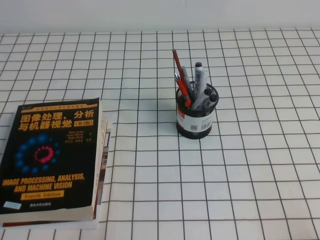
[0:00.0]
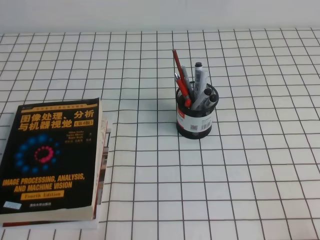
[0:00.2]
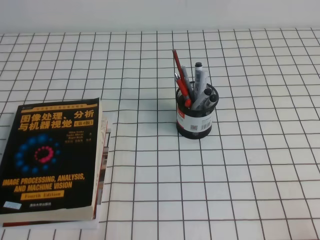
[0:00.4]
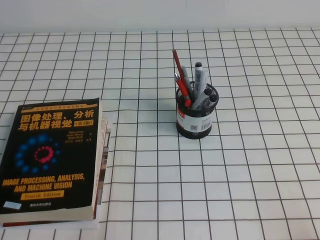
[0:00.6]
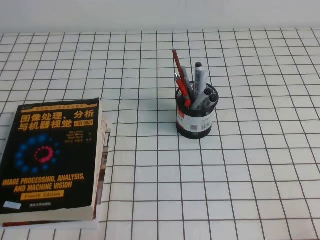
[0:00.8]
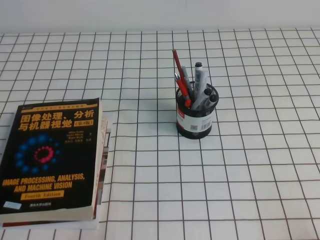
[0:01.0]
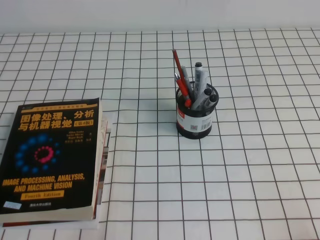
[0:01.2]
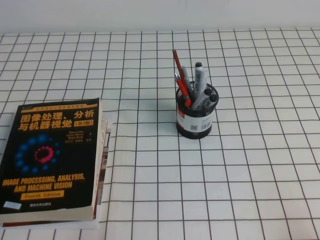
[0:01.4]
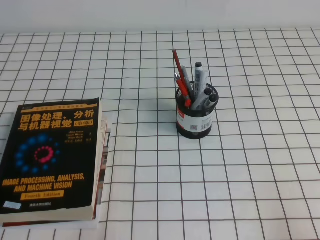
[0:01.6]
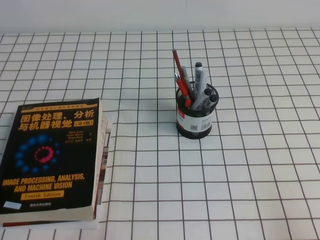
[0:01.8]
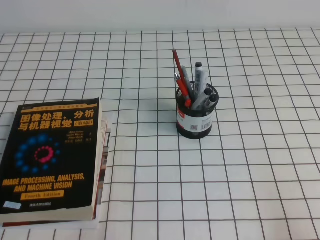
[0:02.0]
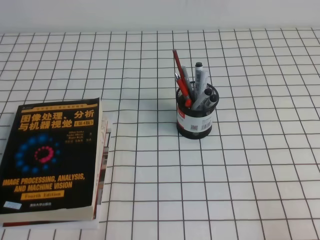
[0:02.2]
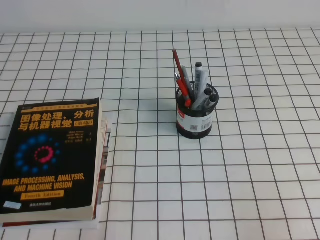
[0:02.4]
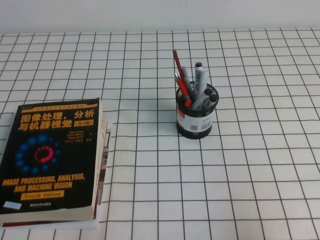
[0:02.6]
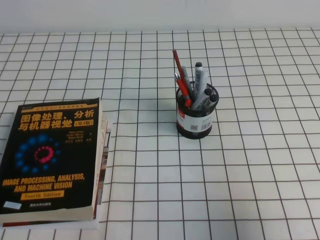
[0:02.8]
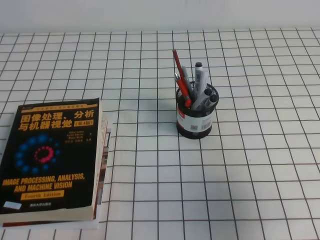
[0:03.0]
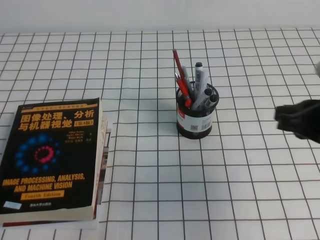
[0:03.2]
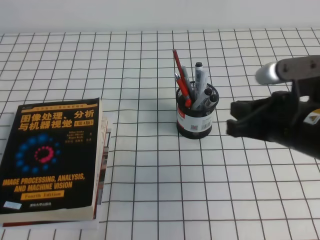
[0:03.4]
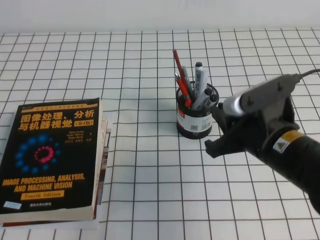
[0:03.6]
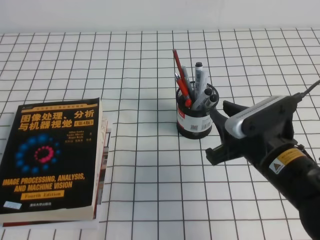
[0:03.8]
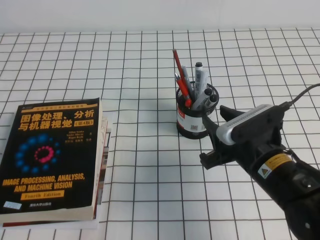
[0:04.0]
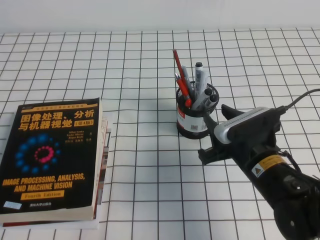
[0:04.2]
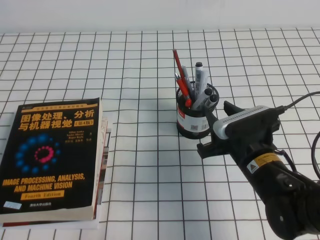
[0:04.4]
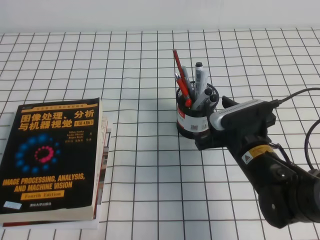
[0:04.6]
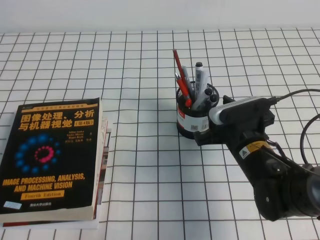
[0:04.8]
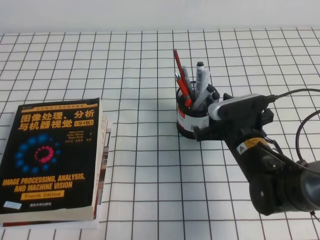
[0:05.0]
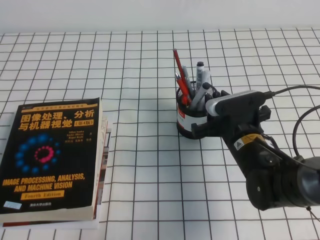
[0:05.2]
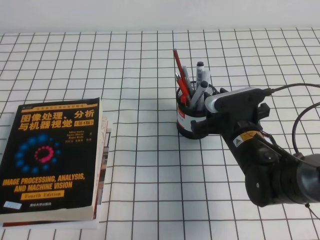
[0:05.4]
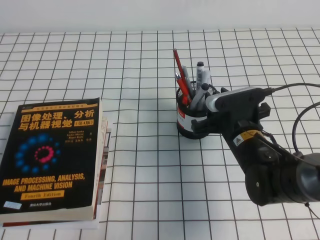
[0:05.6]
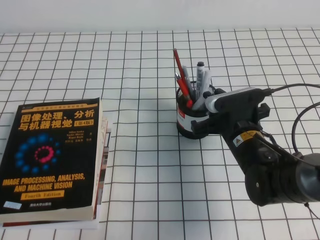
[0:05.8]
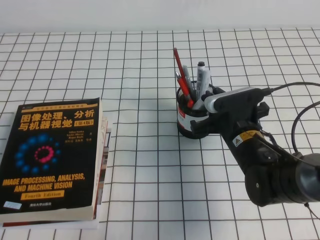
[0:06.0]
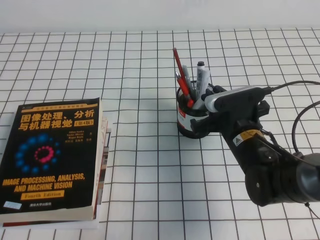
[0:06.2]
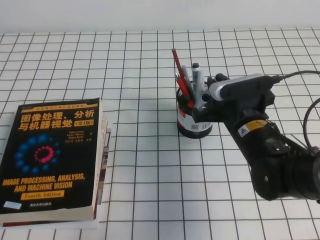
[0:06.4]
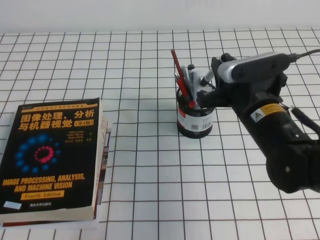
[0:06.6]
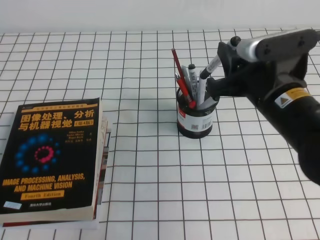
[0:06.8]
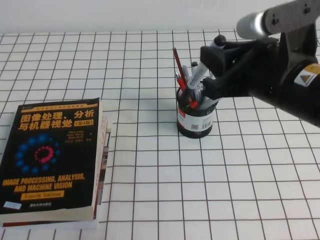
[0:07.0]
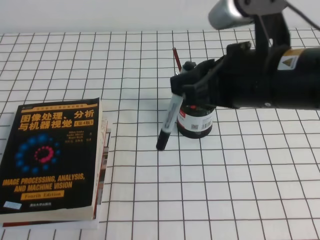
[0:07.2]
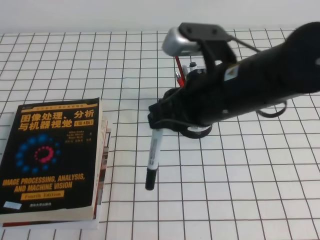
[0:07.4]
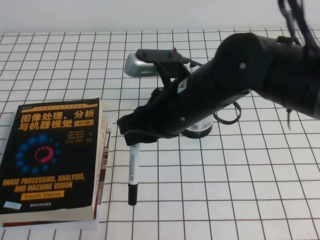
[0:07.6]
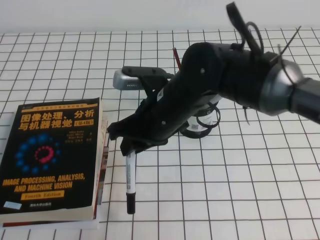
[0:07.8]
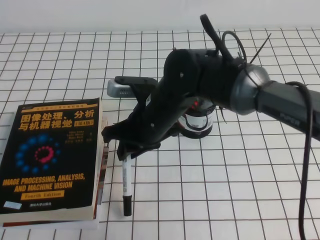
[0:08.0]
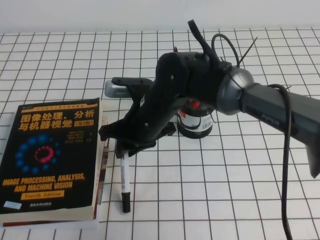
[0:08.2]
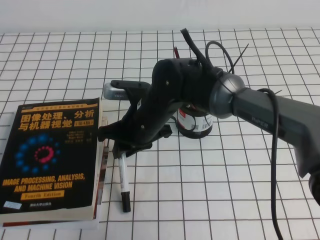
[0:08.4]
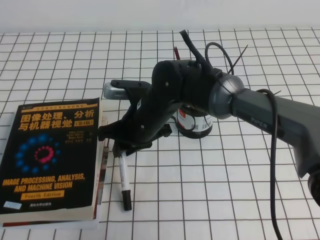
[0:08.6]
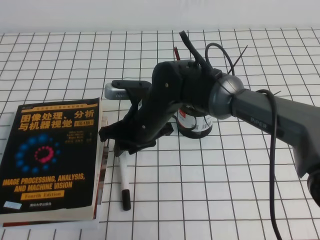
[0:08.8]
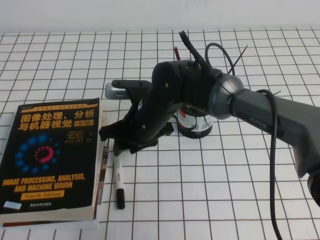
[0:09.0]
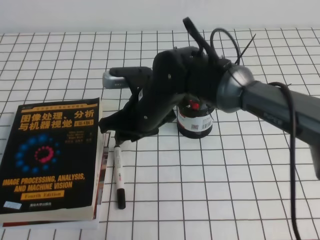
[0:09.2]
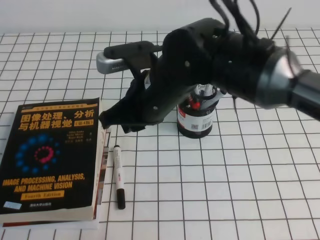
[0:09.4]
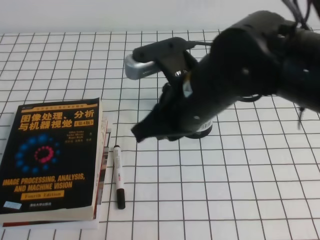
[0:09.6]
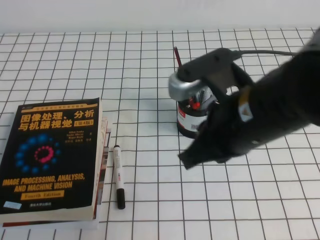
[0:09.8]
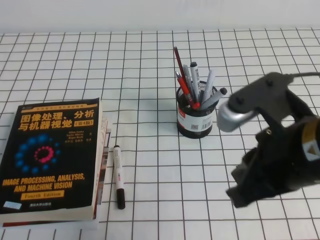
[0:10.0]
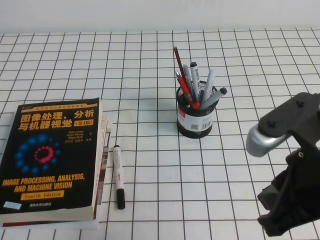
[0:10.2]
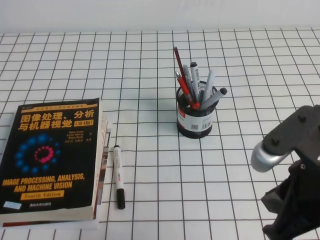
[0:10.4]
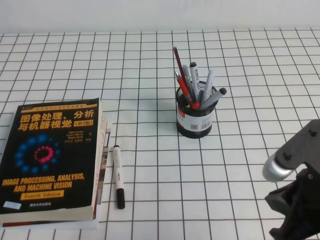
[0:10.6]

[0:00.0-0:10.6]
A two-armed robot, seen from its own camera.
0:01.6 to 0:03.0: The right gripper goes roughly 15 cm forward and upward.
0:03.0 to 0:04.6: The right gripper goes about 20 cm to the left, downward and forward, and opens.
0:04.6 to 0:06.0: The right gripper closes up.
0:06.0 to 0:07.6: The right gripper shifts roughly 15 cm upward and to the left.
0:07.6 to 0:09.0: The right gripper is displaced downward, to the left and forward by roughly 15 cm, and opens up.
0:09.0 to 0:10.6: The right gripper heads to the right and backward, covering approximately 30 cm, and closes its fingers.

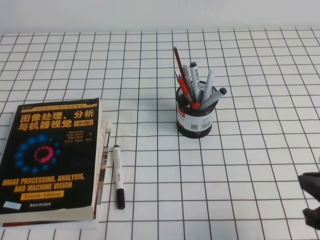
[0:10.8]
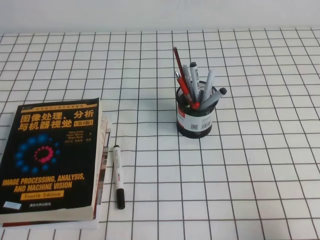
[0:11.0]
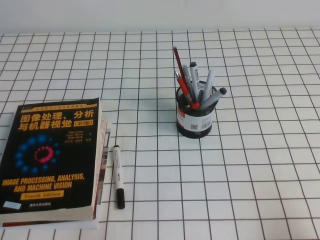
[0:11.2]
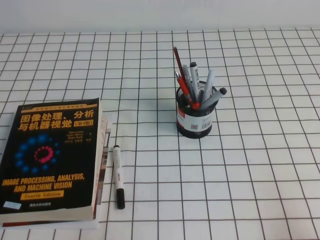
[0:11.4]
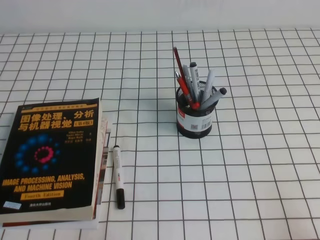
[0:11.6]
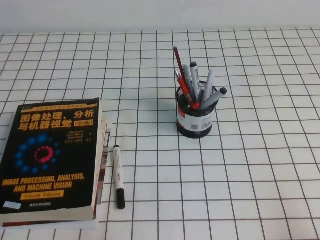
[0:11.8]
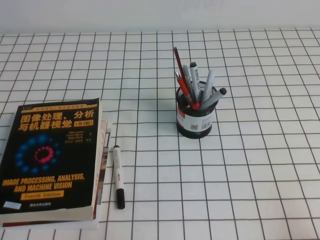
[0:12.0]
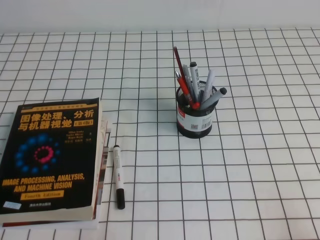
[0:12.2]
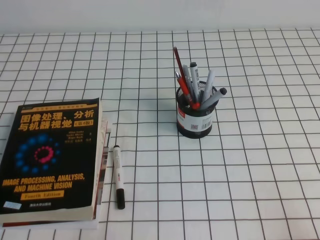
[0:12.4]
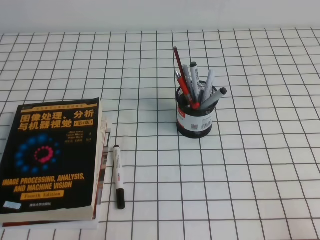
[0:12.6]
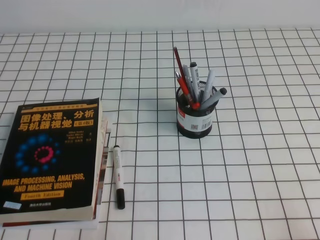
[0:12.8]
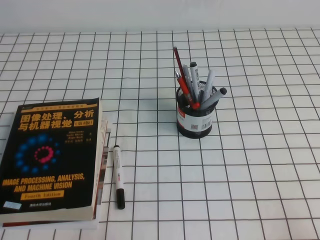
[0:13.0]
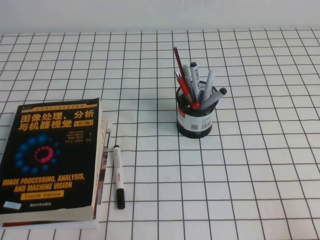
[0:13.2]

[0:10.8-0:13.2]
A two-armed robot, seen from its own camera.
Step, 0:10.8 to 0:13.2: Pick up the pen from the pen holder.
0:10.8 to 0:12.0: The right gripper is displaced downward, backward and to the right by about 15 cm.
